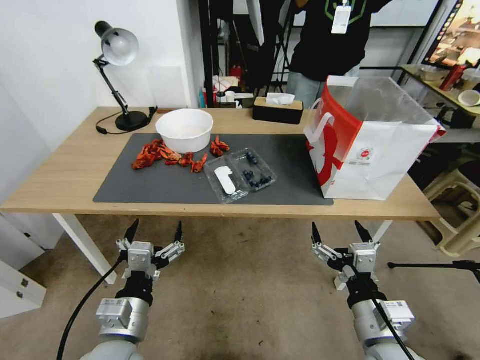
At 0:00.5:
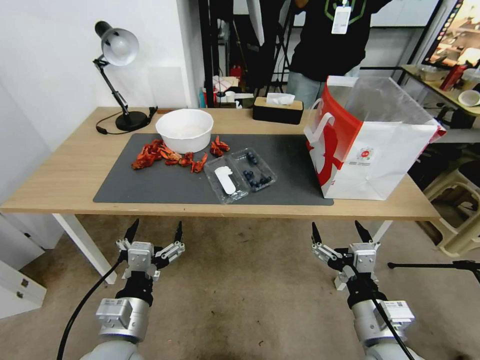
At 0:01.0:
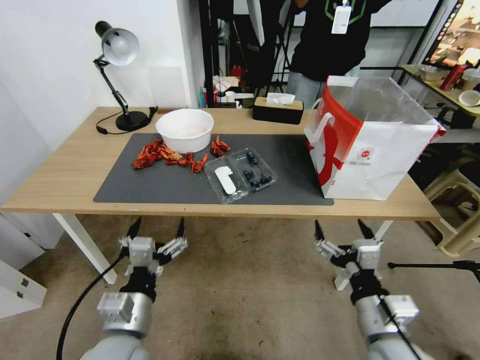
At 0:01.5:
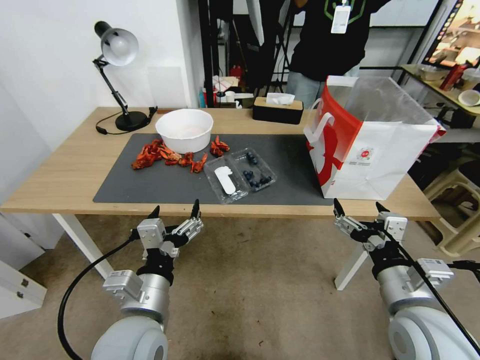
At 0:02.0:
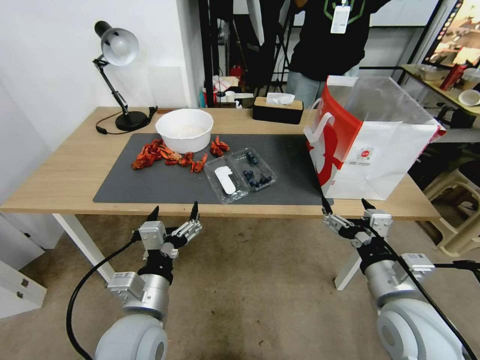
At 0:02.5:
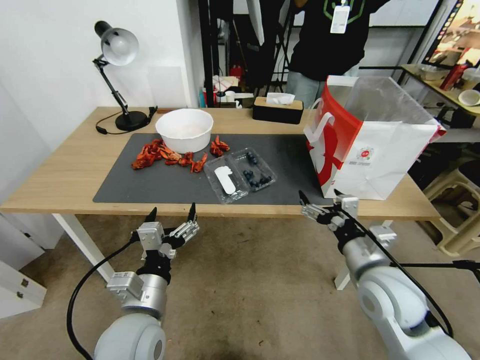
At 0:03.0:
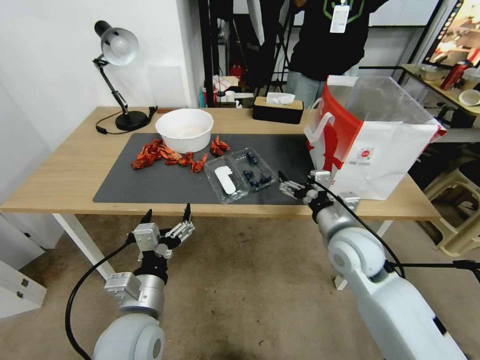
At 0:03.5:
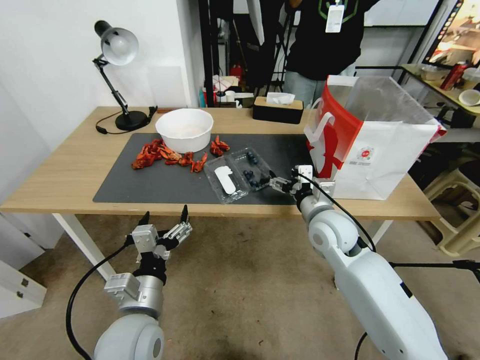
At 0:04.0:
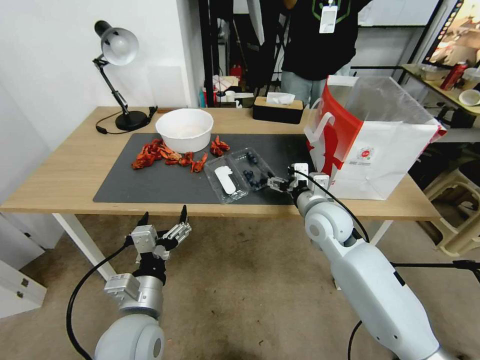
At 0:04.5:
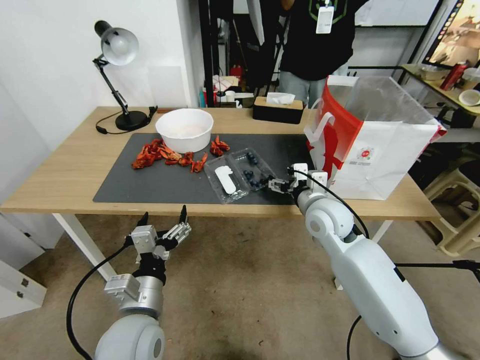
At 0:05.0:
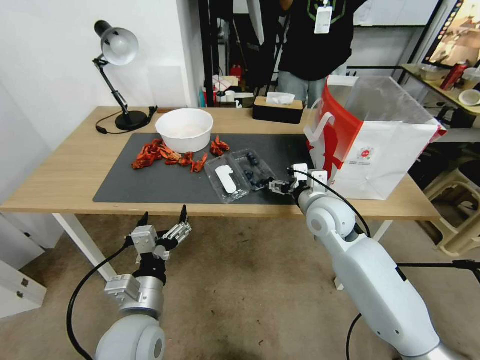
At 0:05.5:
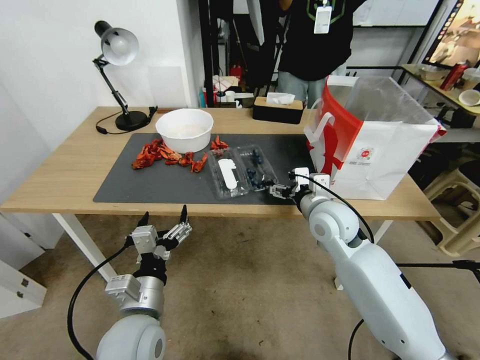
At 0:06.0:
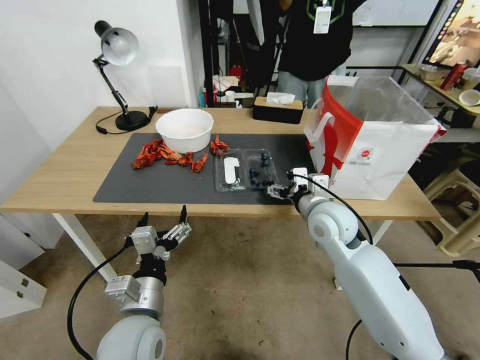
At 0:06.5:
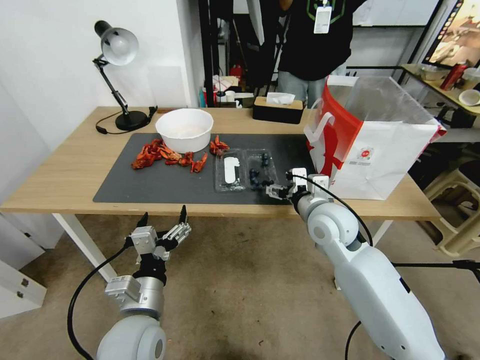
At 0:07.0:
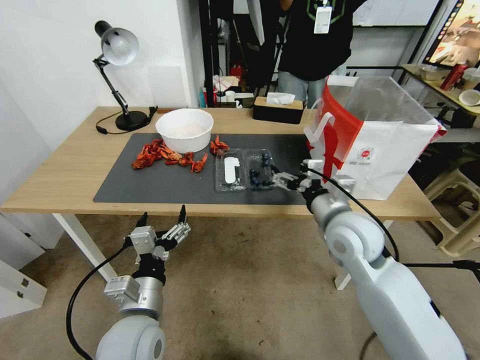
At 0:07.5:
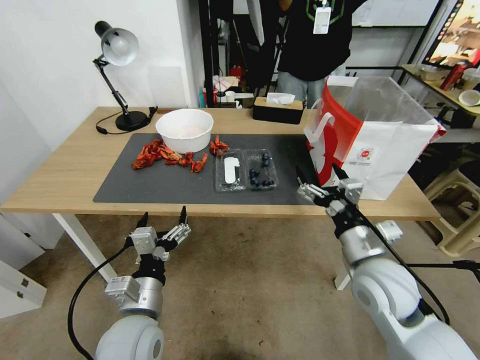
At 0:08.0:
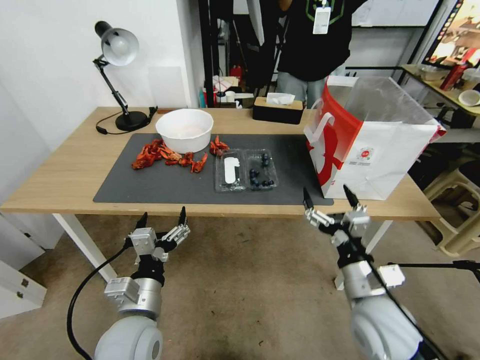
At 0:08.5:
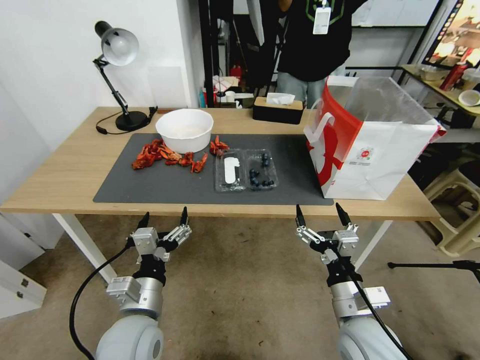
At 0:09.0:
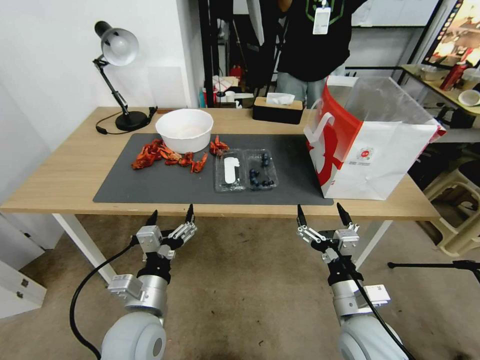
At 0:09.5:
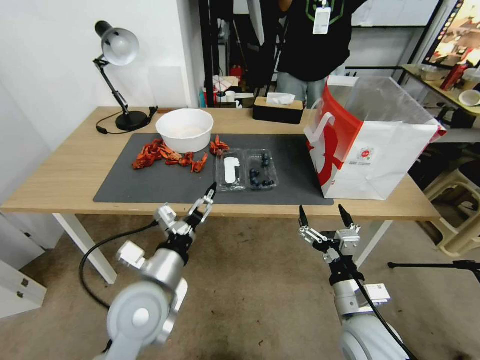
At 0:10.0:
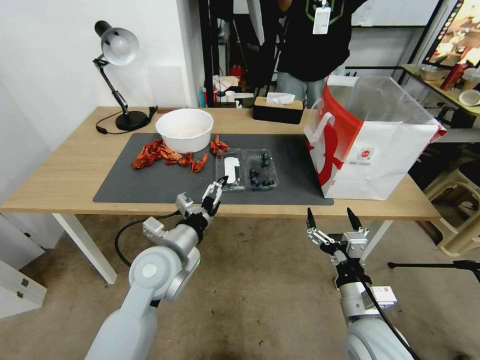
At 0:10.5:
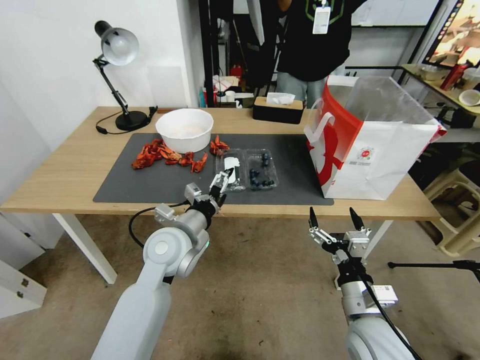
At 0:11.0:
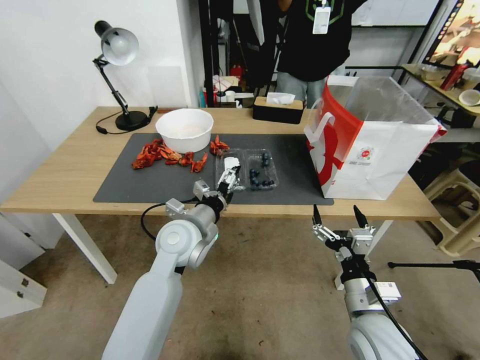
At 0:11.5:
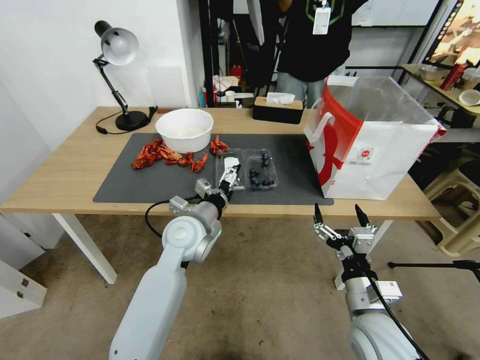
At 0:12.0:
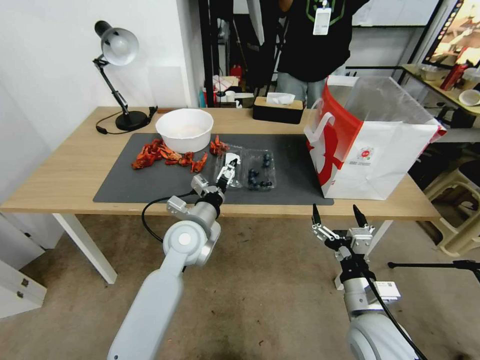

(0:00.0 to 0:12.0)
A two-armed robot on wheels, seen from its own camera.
Task of the whole recording: Close the takeout container lid, then place the container into the takeout bag.
0:02.0 - 0:04.0: The right gripper heads forward, covering roughly 20 cm.
0:04.0 - 0:06.0: The grippers move only a little.
0:06.0 - 0:08.0: The right gripper shifts some 20 cm backward.
0:08.0 - 0:10.0: The left gripper shifts some 10 cm forward.
0:10.0 - 0:12.0: The left gripper travels forward by about 5 cm.

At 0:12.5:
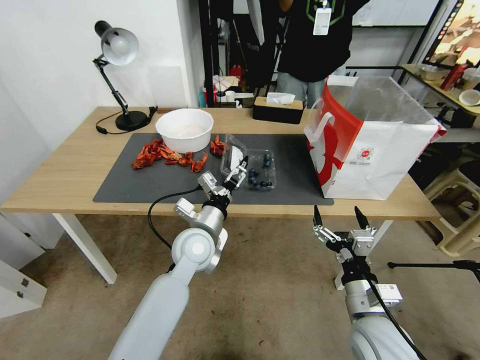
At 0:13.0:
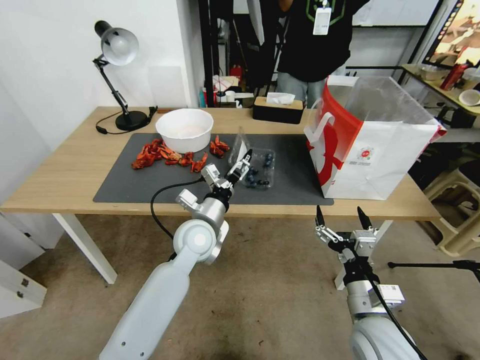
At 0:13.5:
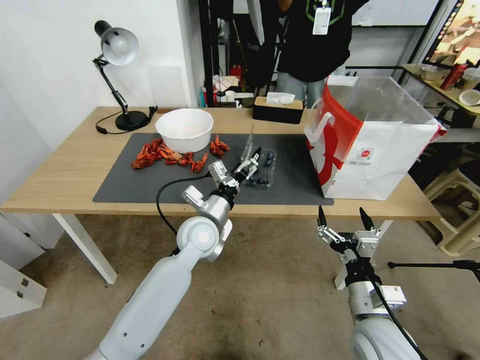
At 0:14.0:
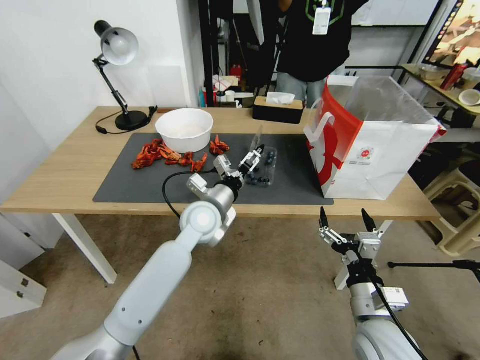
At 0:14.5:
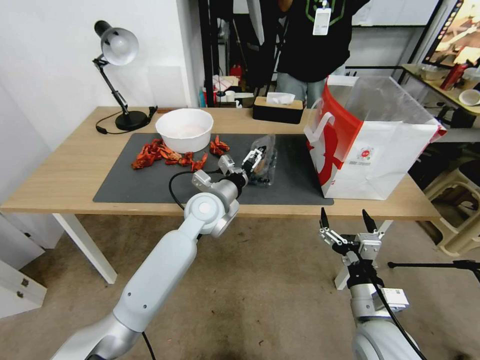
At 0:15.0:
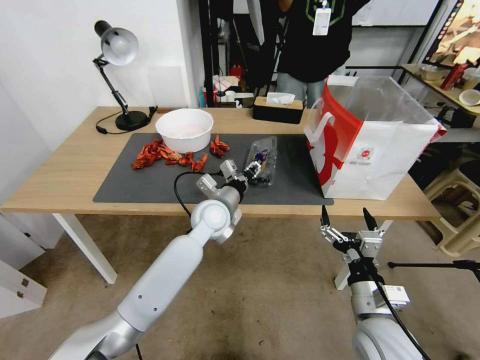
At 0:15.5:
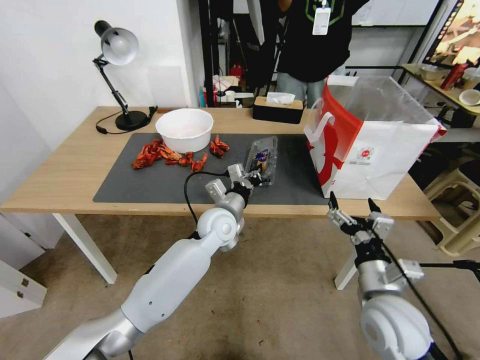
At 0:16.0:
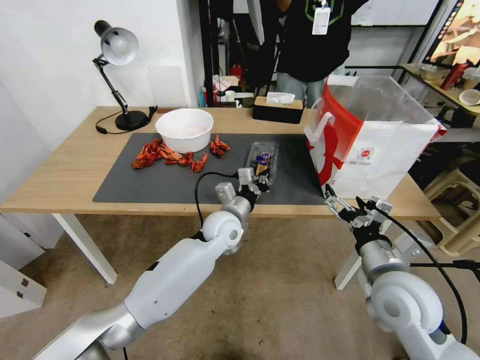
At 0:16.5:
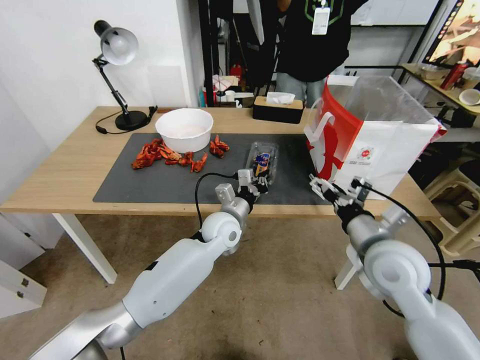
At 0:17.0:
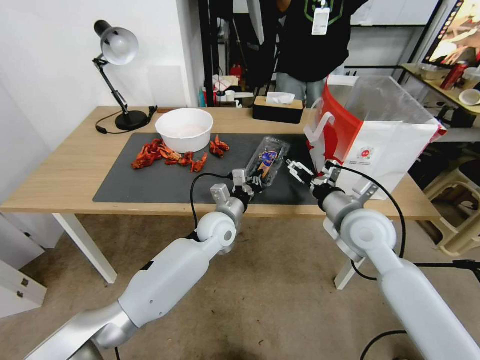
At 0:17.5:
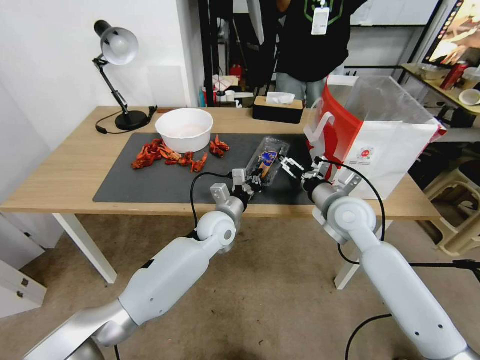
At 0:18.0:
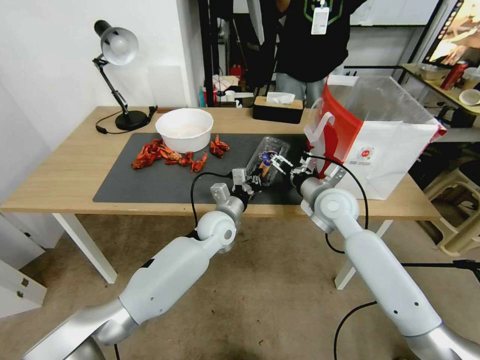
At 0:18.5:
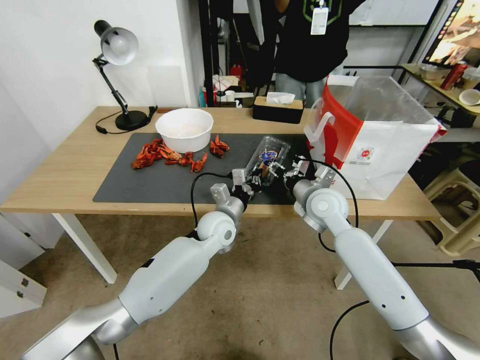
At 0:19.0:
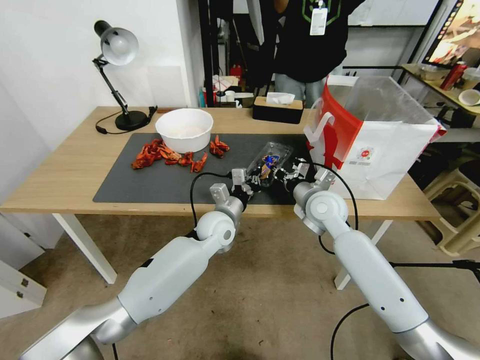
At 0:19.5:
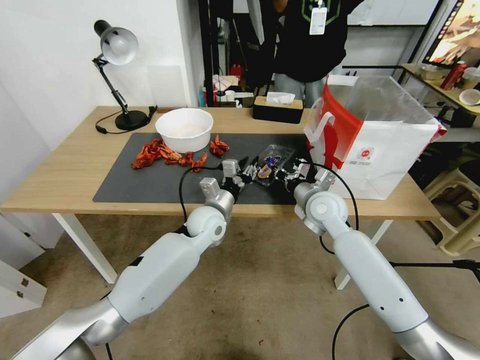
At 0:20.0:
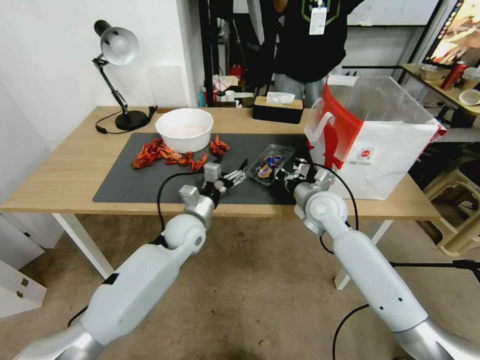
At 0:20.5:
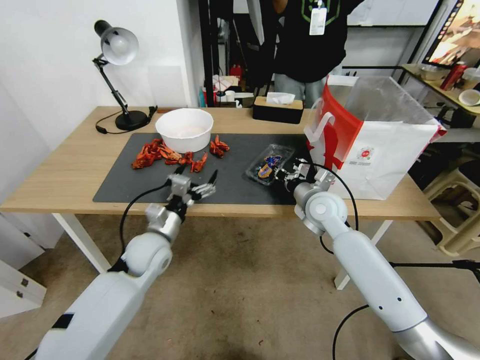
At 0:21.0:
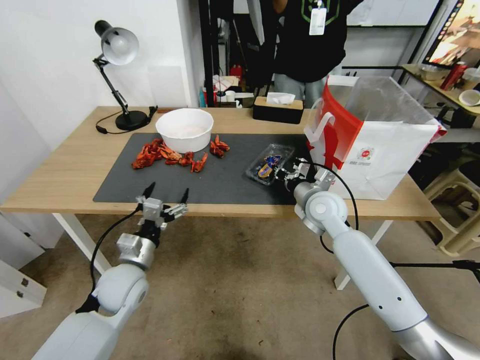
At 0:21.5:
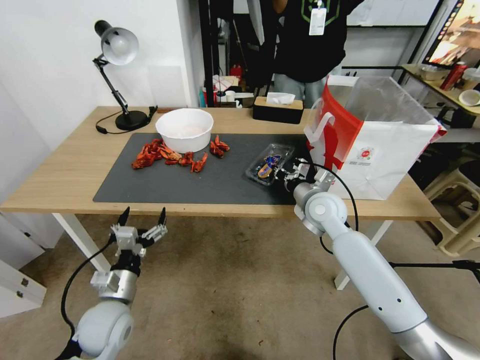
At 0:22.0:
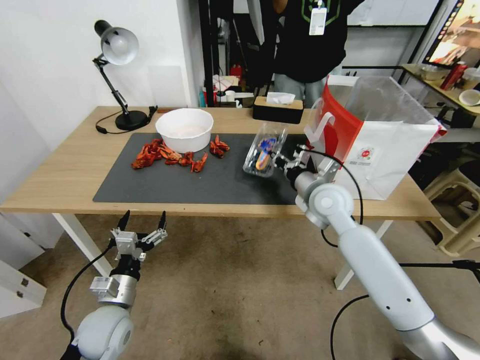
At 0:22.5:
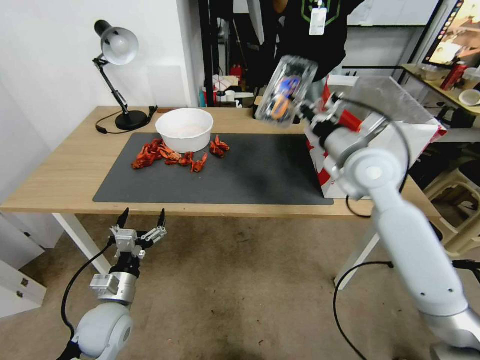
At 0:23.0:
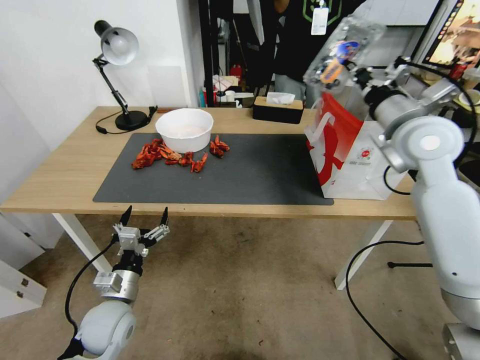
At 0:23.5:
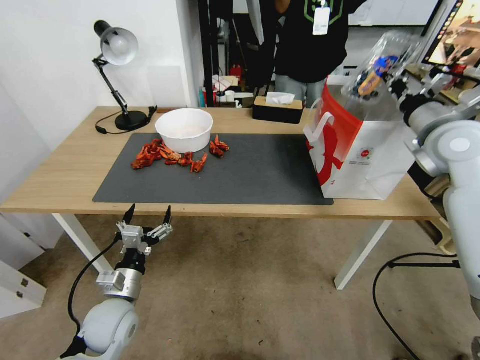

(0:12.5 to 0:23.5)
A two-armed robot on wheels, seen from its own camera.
Task of the whole recording: Close the takeout container lid, then place the container into the takeout bag.
0:12.5 - 0:14.5: The left gripper shifts approximately 5 cm forward.
0:14.5 - 0:16.0: The left gripper goes approximately 5 cm downward, and closes up, while the right gripper goes approximately 10 cm upward and forward.
0:16.0 - 0:18.0: The right gripper heads forward, covering some 20 cm.
0:18.0 - 0:20.0: The left gripper shifts approximately 10 cm to the left, and opens, while the right gripper closes.
0:20.0 - 0:21.5: The left gripper heads backward and to the left, covering about 20 cm.
0:21.5 - 0:23.5: The right gripper goes roughly 25 cm upward and to the right.

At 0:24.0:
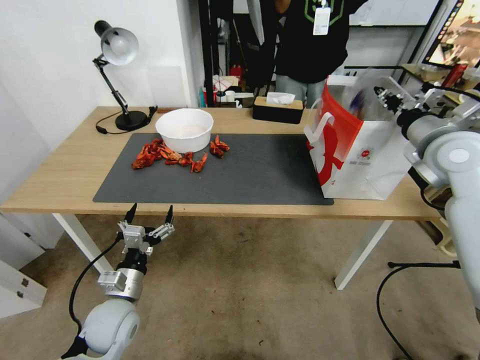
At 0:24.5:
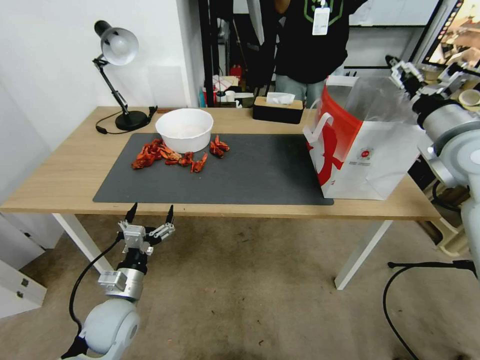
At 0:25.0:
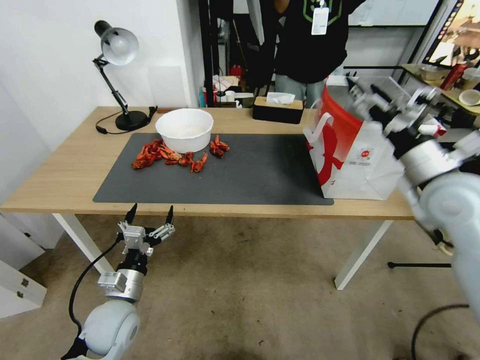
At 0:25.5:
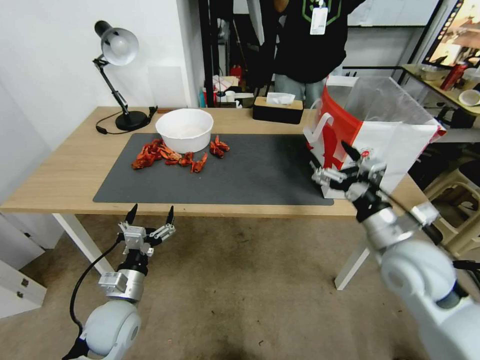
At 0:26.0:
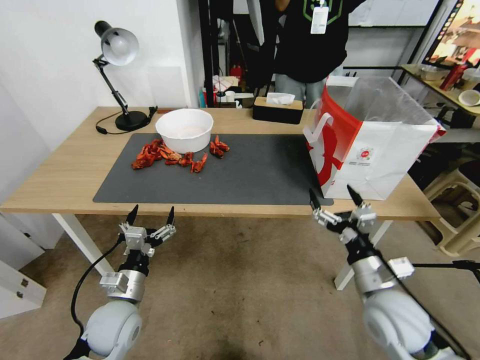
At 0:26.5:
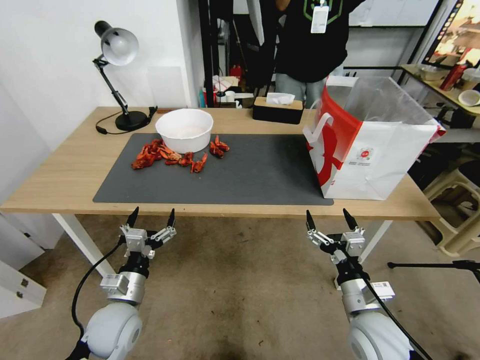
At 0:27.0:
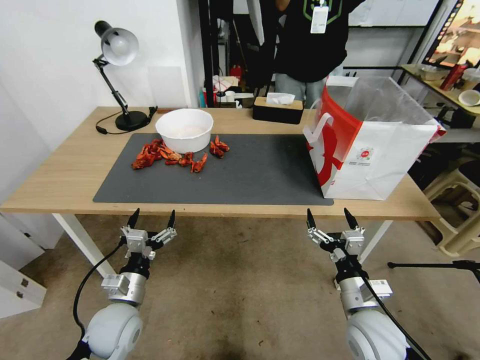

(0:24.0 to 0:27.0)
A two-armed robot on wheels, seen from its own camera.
Task of the whole recording: Close the takeout container lid, then place the container into the takeout bag.
0:24.0 - 0:25.5: The right gripper is displaced backward, downward and to the left by some 20 cm, and opens its fingers.
0:25.5 - 0:27.0: The right gripper shifts some 15 cm downward and backward.
